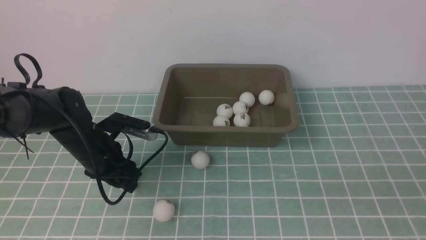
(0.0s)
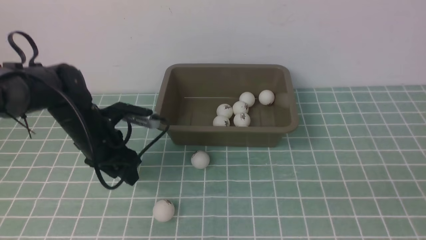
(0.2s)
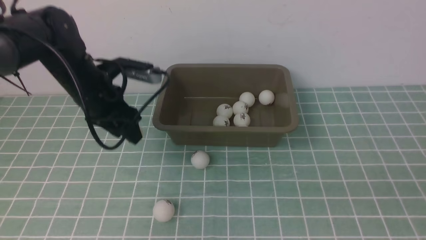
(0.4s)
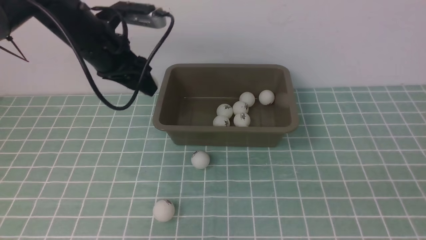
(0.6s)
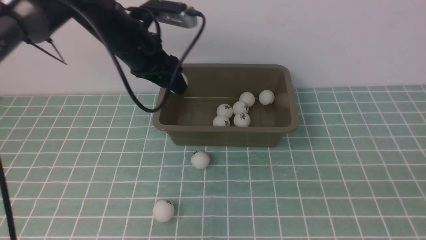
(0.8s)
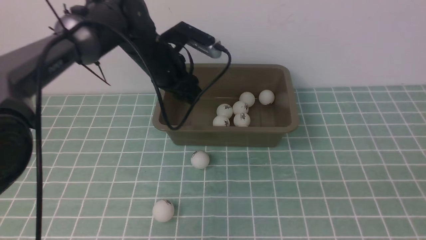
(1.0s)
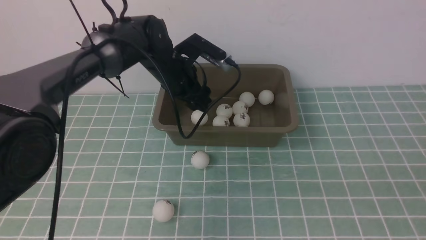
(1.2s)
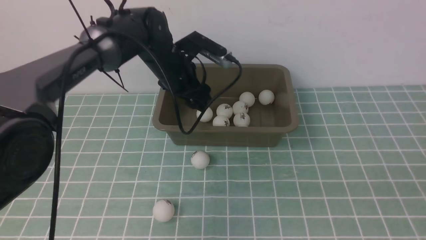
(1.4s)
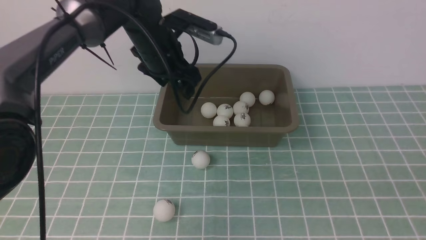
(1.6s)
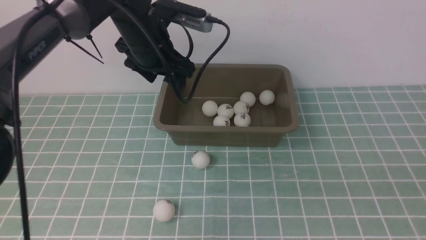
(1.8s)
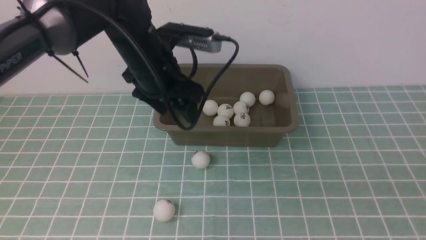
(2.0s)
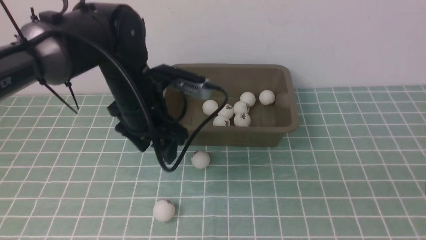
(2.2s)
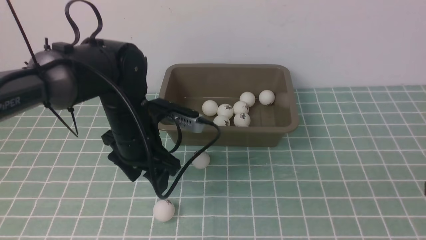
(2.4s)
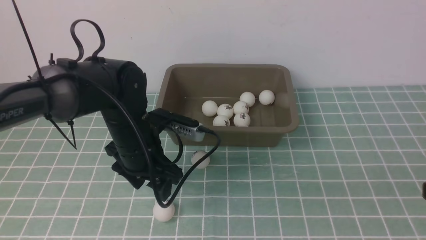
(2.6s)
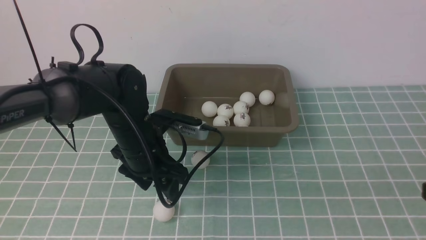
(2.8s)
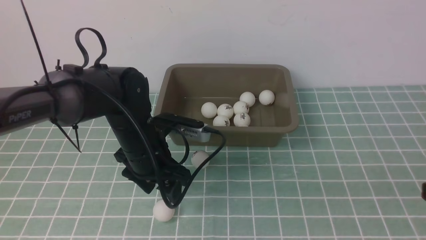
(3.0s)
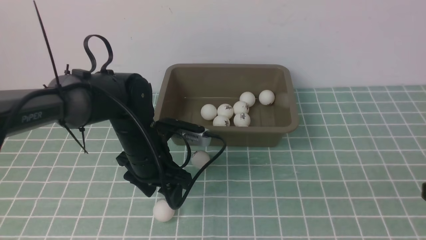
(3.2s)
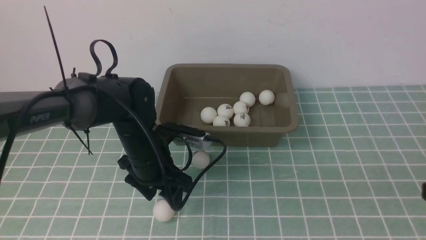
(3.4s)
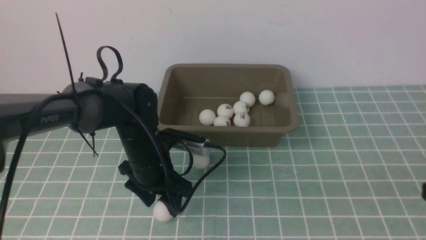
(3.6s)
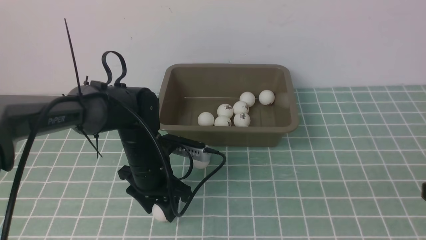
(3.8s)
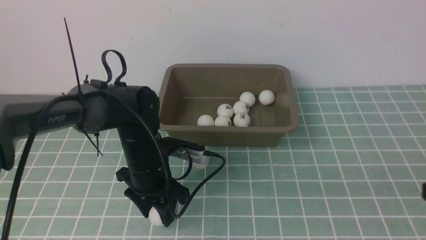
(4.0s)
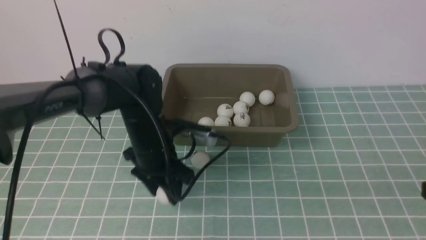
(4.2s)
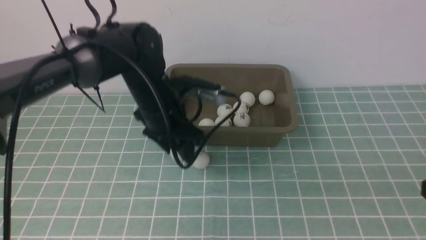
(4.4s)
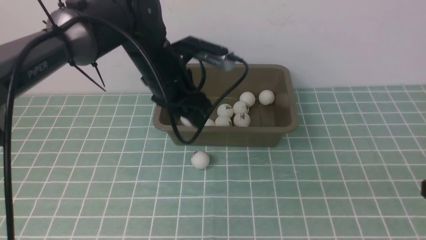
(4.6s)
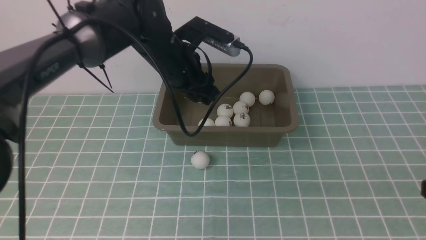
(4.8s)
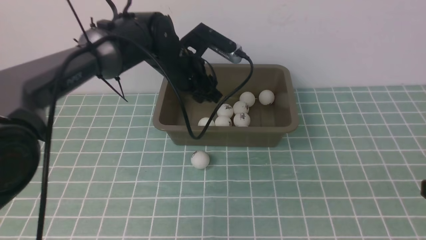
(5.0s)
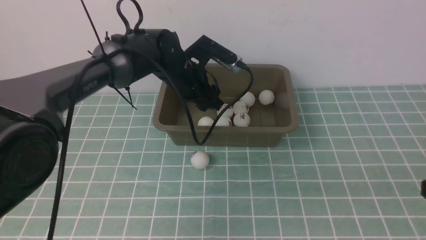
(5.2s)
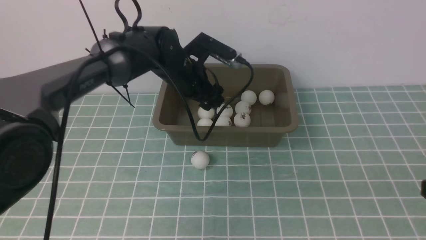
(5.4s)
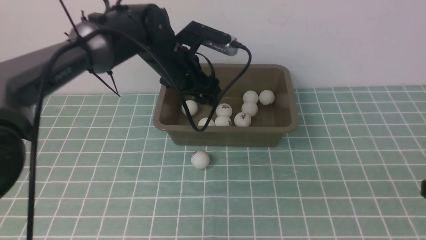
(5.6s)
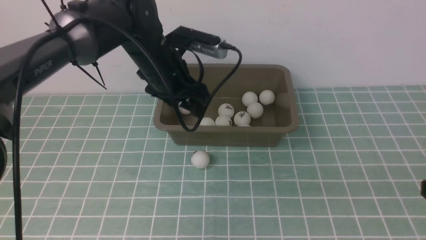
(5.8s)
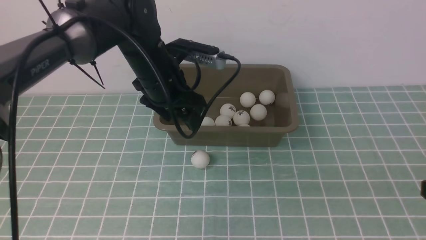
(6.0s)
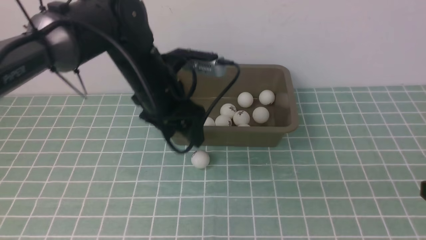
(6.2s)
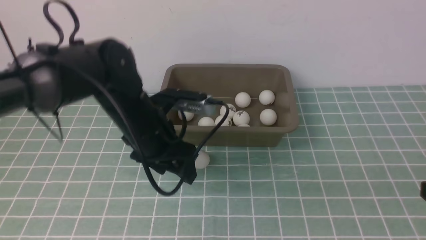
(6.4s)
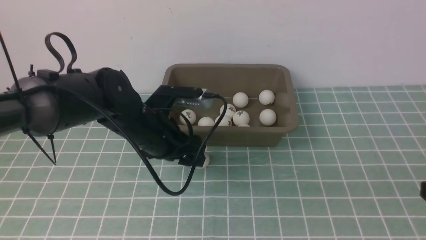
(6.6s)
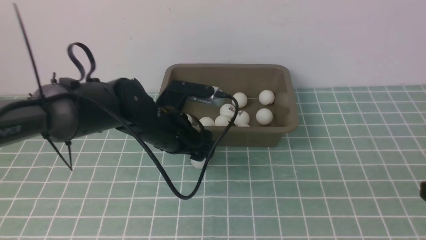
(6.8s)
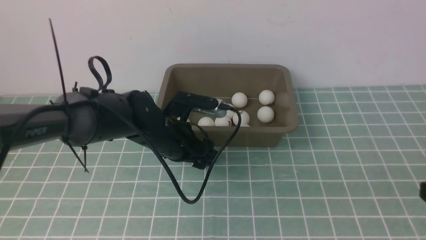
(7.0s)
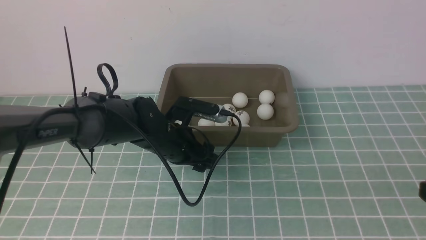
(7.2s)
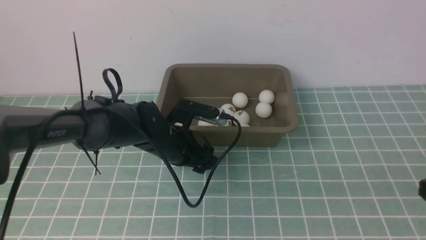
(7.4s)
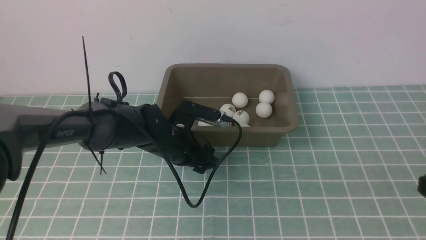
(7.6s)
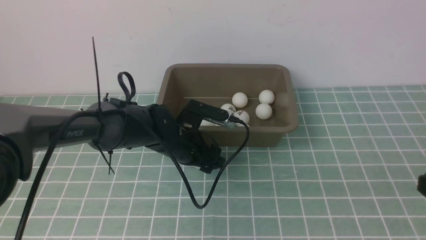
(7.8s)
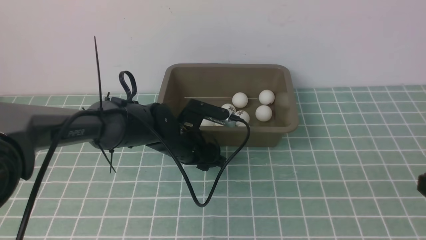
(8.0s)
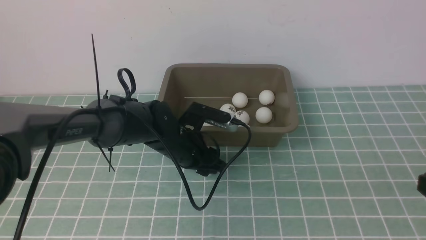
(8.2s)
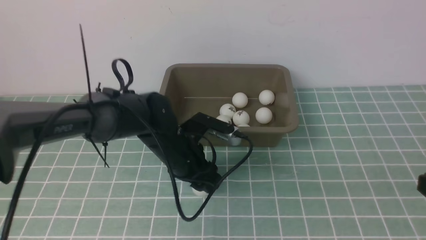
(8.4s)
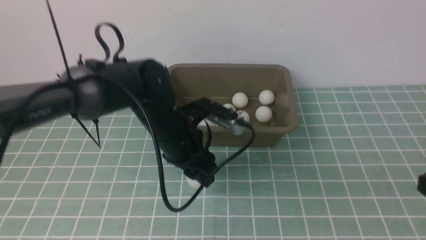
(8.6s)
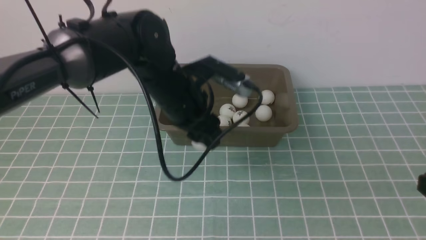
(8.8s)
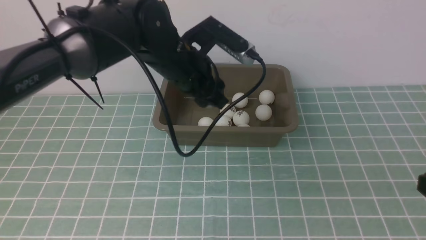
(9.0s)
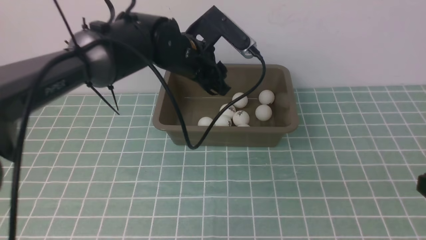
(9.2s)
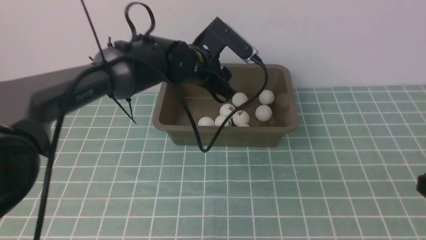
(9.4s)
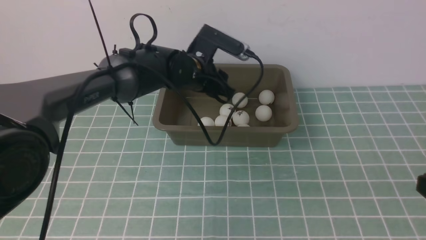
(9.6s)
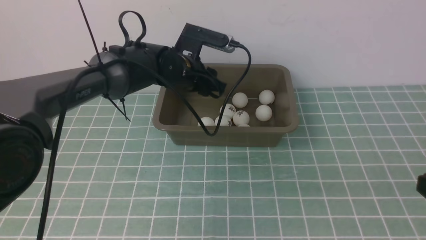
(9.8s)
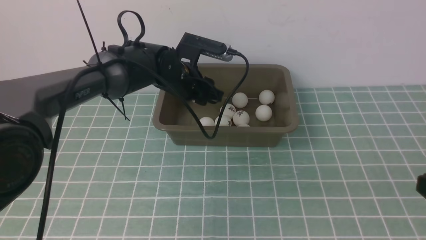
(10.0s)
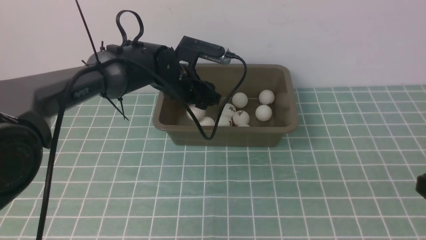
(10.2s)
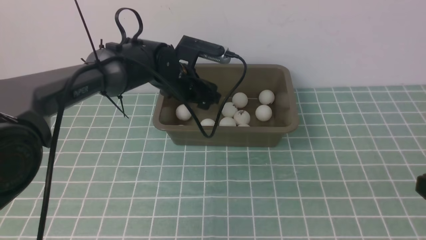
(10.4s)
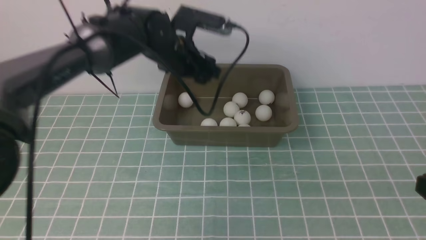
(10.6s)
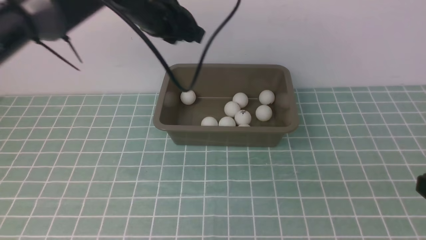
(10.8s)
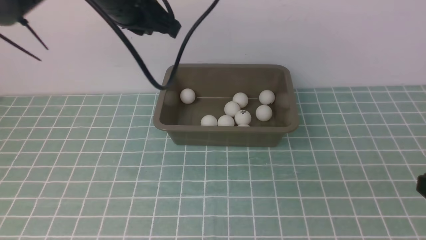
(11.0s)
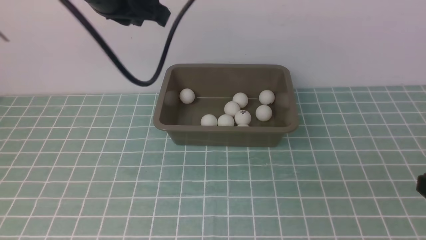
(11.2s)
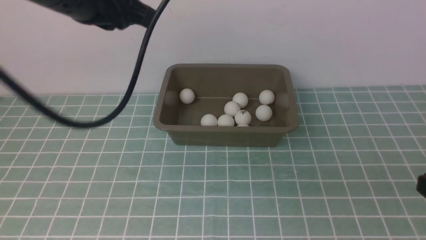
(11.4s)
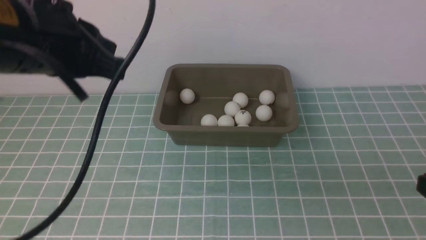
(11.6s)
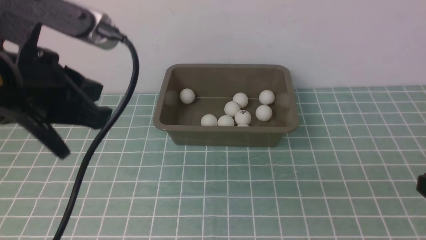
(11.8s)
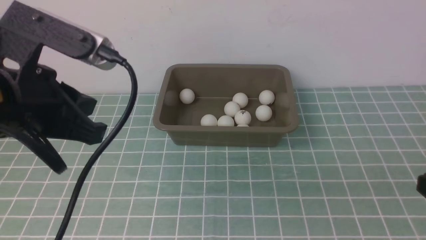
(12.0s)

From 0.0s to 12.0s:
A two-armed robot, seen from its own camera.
Step, from 0.4s to 1.2s: use the left arm to put the table tennis ball into the box.
Step, from 1.6s to 4.0s: use the left arm to clamp the table tennis ball closest to it.
Step, from 4.4s to 5.6s: use the left arm to put the table tennis ball into the box.
Step, from 5.8s to 8.4s: use the left arm to clamp the table tennis ball closest to it.
Step, from 8.6s to 10.4s: use the left arm to put the table tennis ball into the box.
From 0.0s to 1.6s: The left gripper goes approximately 10 cm to the right.
From 1.6s to 3.0s: The left gripper is displaced downward and backward by some 15 cm.
From 3.0s to 4.4s: The left gripper is displaced upward and forward by roughly 10 cm.
From 6.0s to 7.6s: The left gripper shifts approximately 10 cm downward.
From 7.6s to 9.0s: The left gripper shifts roughly 15 cm upward and forward.
From 9.0s to 10.4s: The left gripper moves upward and to the left, roughly 15 cm, and closes up.
From 10.4s to 12.0s: The left gripper shifts roughly 25 cm backward and to the left.

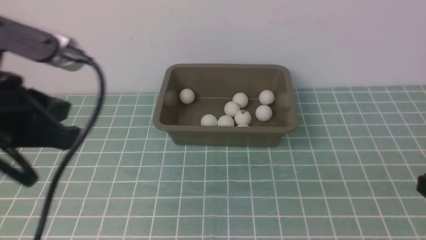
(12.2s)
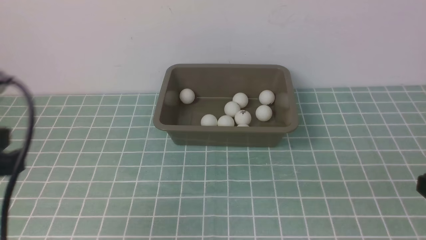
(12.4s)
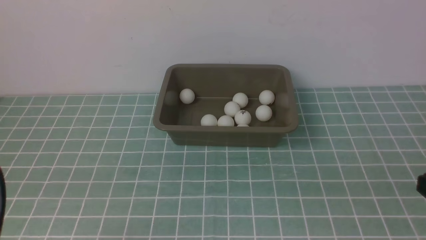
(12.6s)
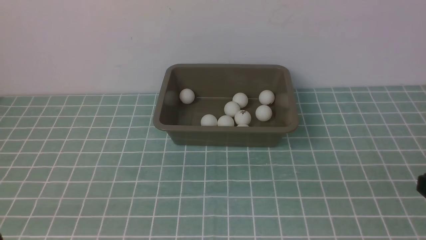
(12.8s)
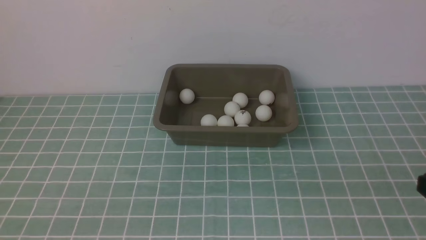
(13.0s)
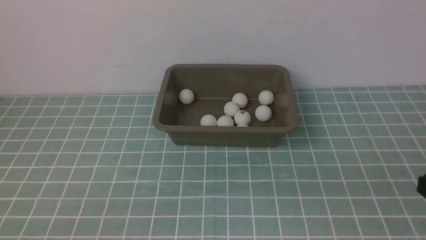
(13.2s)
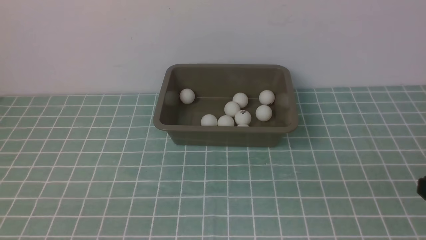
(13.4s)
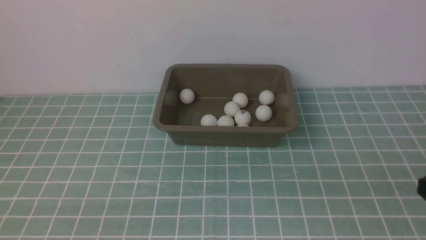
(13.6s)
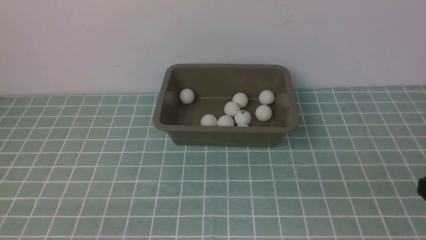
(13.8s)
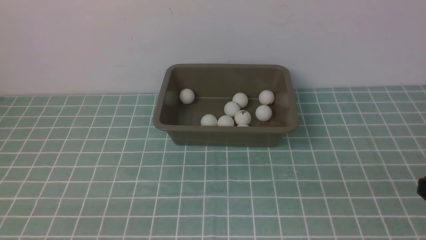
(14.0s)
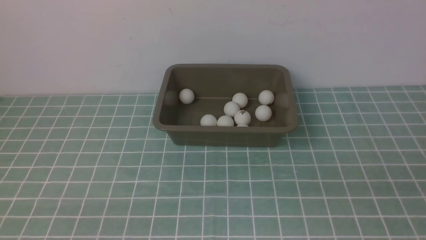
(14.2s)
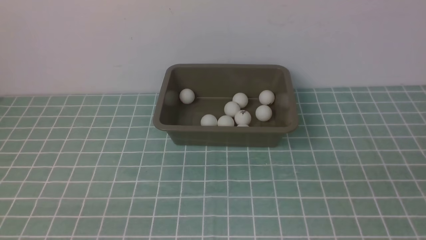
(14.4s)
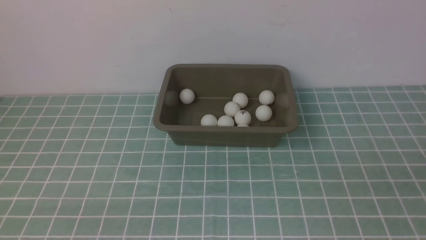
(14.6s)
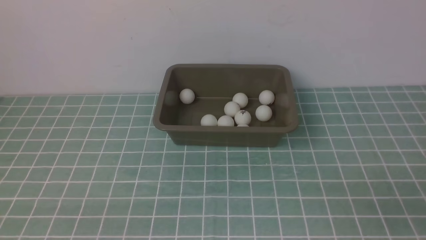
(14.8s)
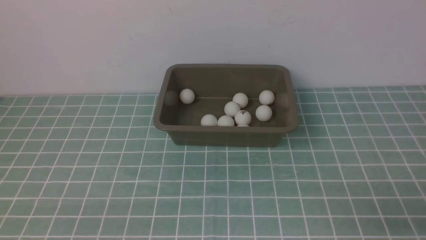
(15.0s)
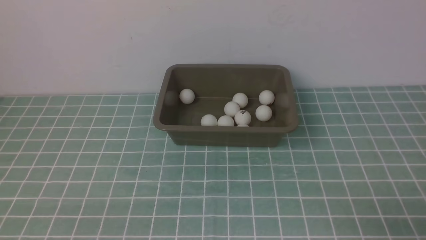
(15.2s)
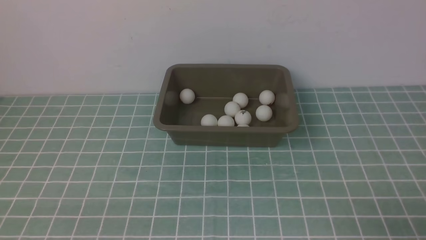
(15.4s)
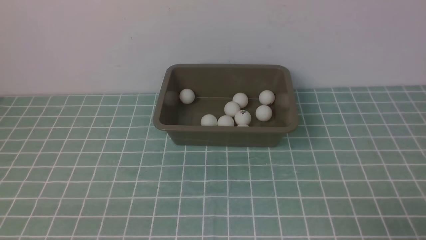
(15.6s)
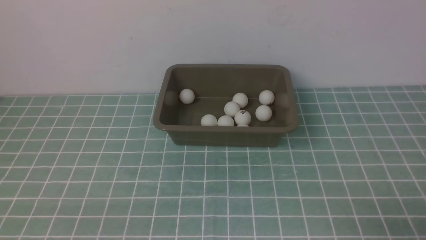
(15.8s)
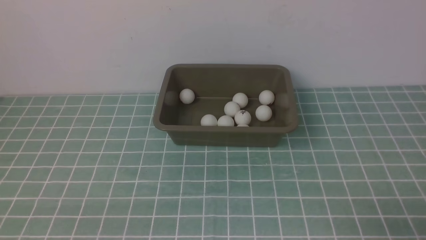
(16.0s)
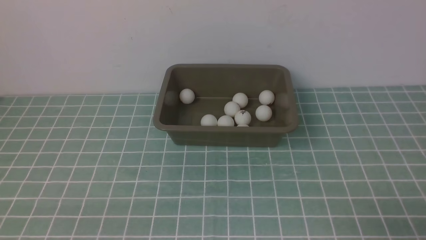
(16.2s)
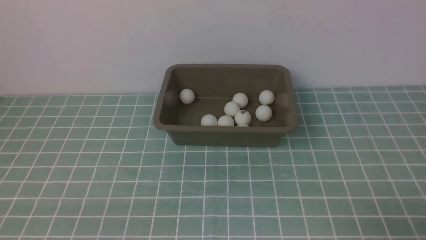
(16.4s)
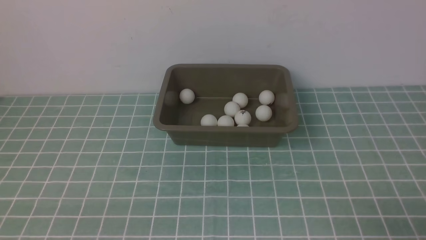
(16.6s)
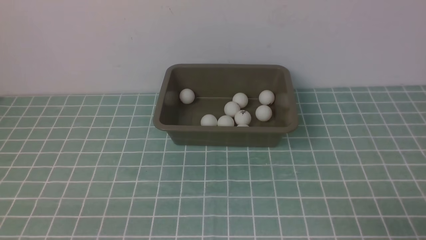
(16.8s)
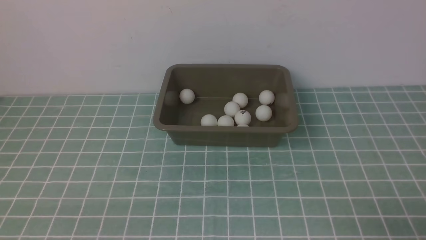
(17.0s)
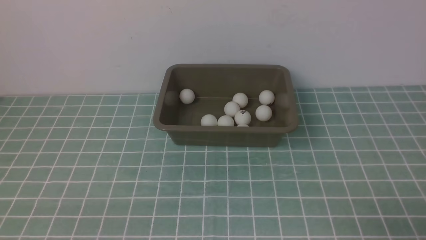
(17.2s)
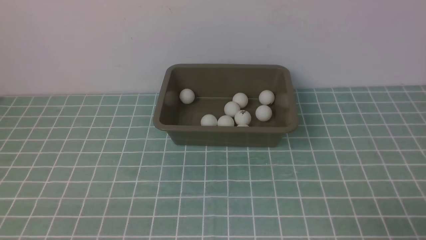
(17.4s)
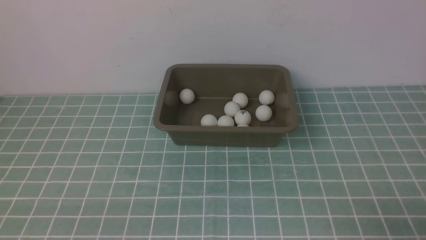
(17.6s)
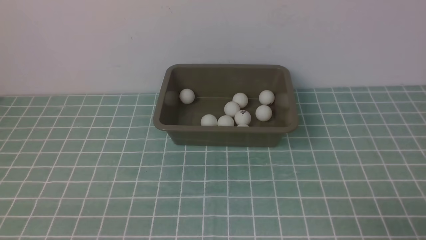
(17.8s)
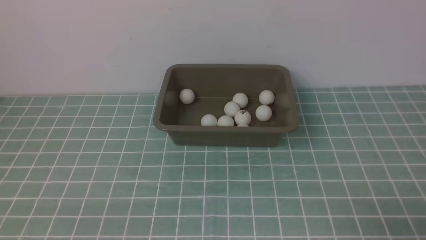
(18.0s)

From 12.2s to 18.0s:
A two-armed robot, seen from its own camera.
From 12.2s to 13.6s: The left gripper heads downward and backward, covering approximately 20 cm.
From 16.6s to 18.0s: The two grippers keep their place.
